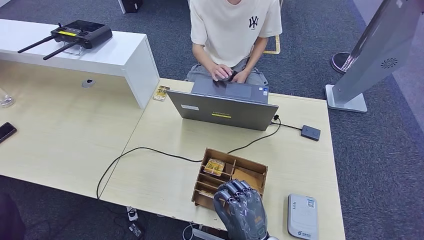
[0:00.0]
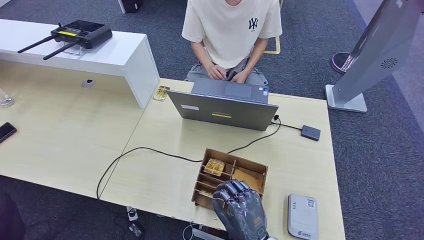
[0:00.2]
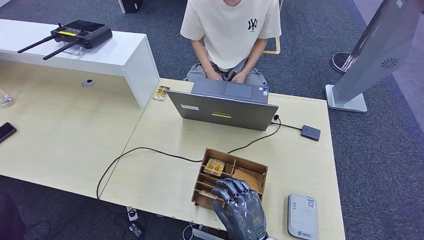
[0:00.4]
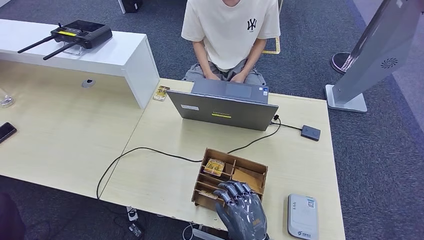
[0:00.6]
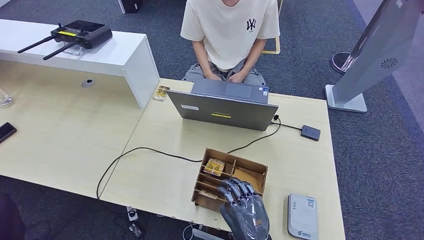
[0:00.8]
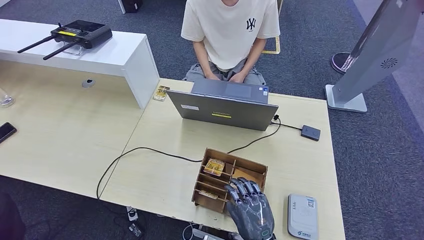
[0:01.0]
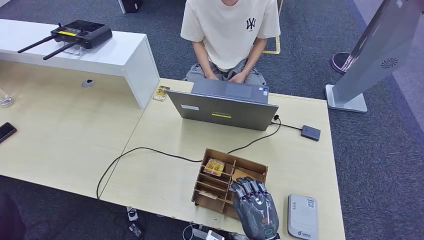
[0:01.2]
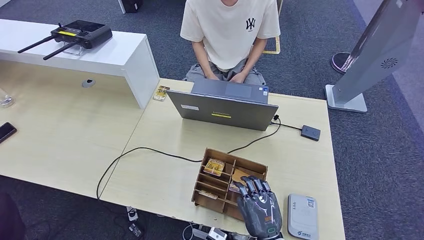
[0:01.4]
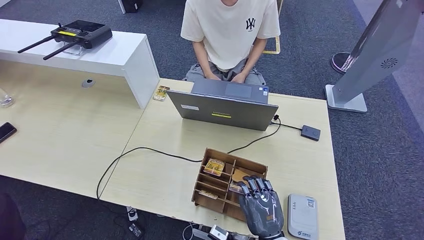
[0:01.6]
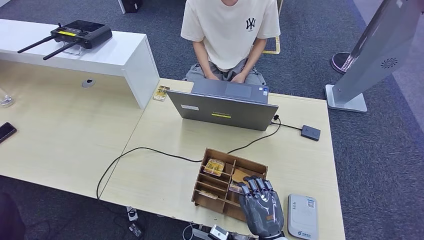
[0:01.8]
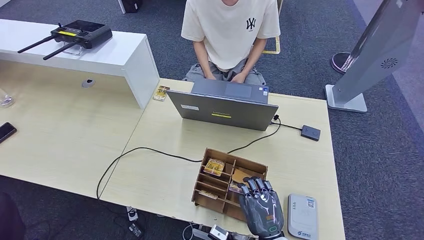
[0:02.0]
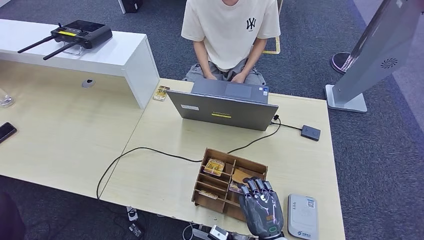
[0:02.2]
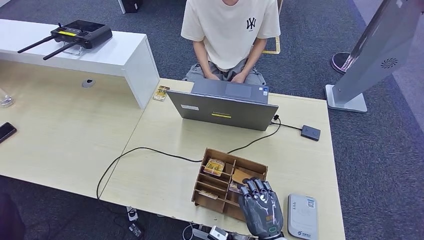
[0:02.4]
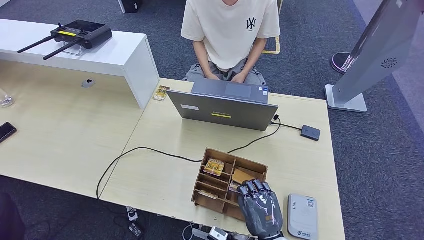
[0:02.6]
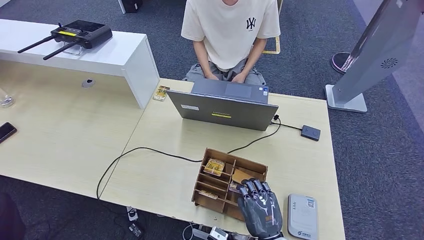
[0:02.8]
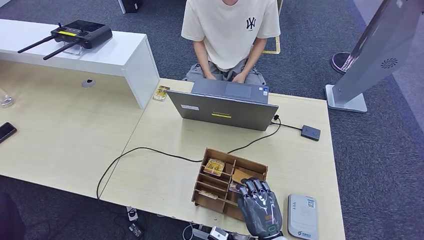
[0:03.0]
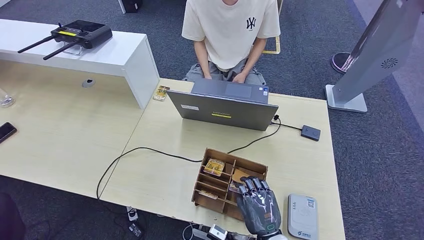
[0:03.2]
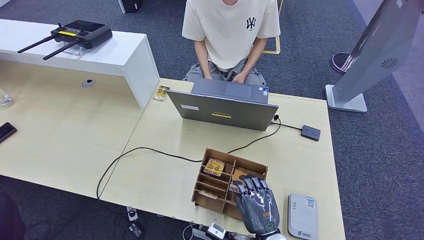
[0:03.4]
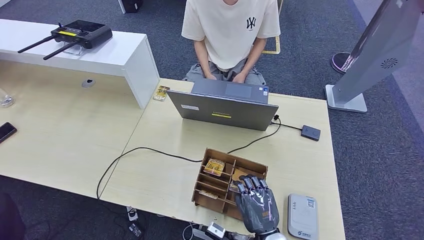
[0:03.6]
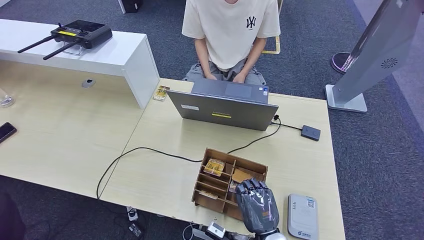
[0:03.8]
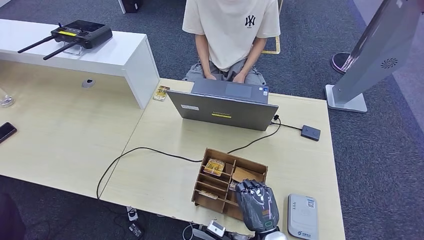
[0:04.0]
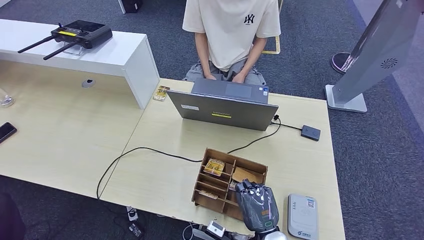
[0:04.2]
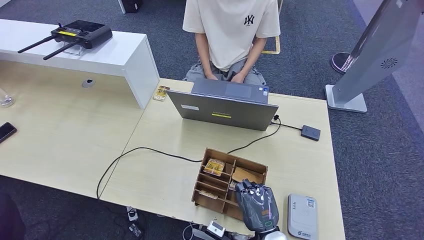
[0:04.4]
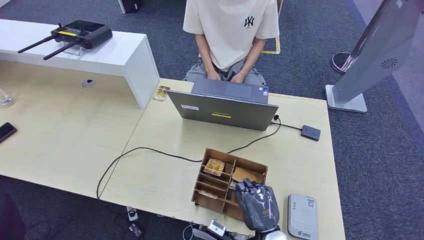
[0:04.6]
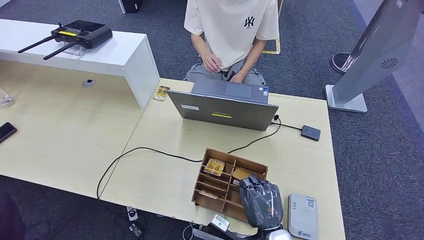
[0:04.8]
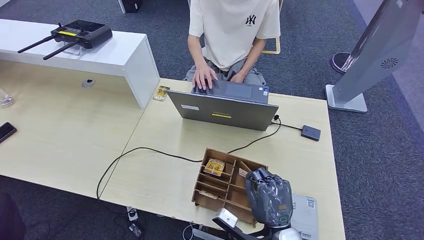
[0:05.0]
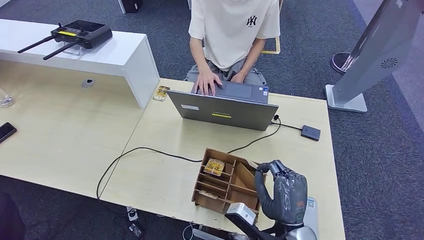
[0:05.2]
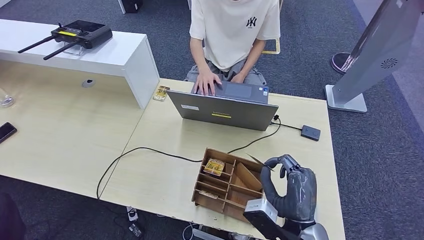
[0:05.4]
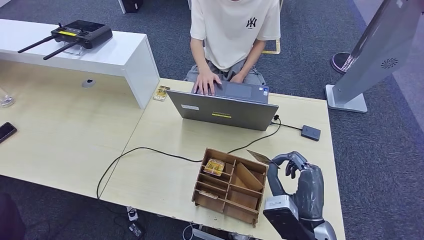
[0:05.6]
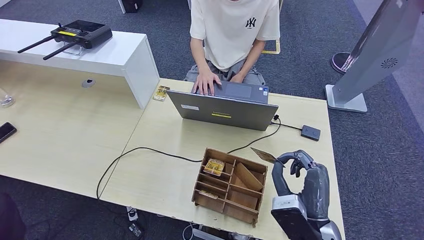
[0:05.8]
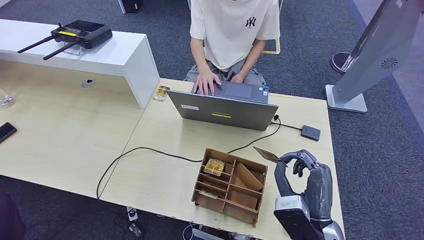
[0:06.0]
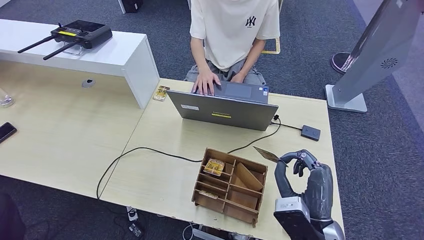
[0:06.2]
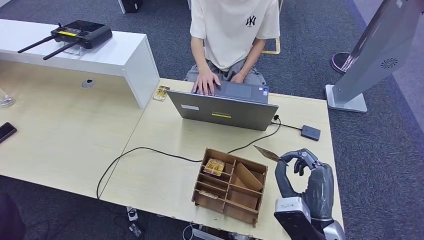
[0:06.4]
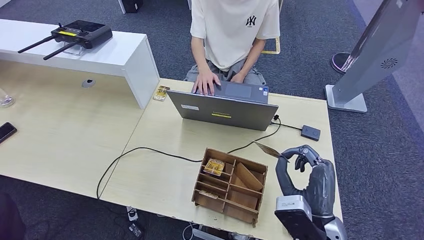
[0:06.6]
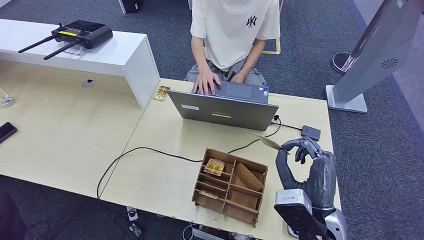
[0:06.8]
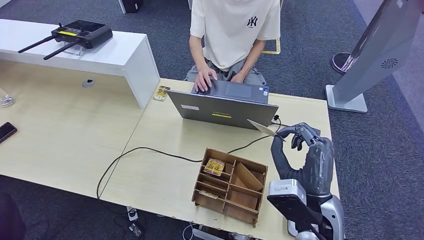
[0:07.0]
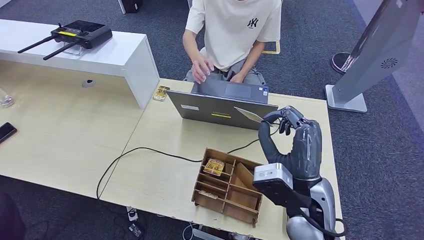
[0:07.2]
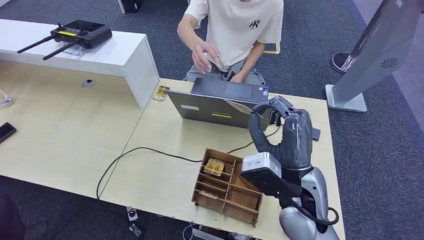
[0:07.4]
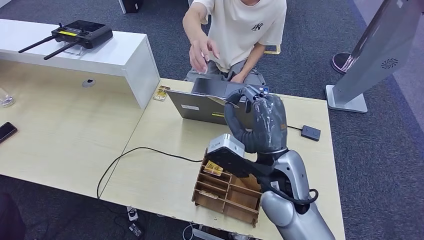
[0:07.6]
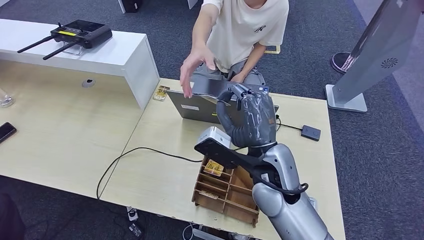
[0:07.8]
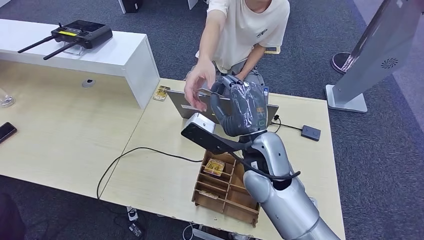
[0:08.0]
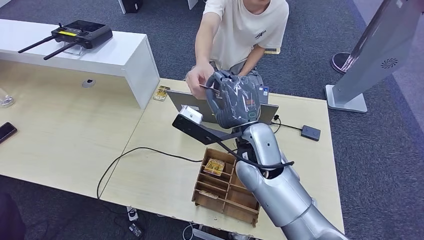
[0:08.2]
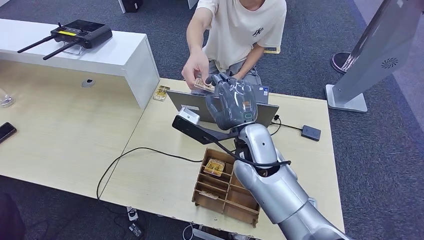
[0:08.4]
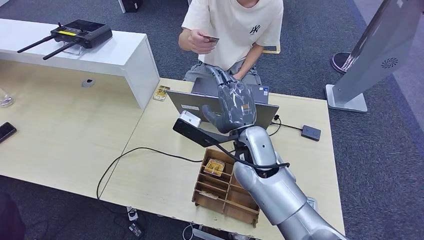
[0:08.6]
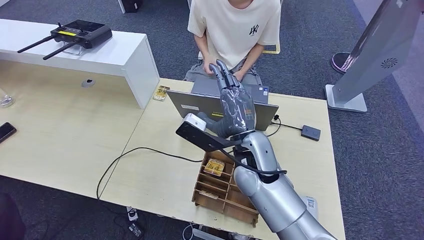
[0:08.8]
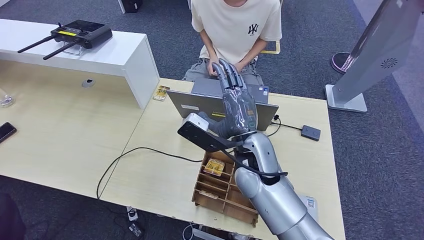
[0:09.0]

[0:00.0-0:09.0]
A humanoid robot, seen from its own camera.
Step, 4.2 to 6.0 s: Pick up the room key from the key card box.
Step, 6.2 to 9.0 s: Hand the room key to the person.
1.6 to 4.4 s: The two hands keep their place.
4.4 to 6.0 s: The right hand travels upward by about 10 cm.
6.0 to 7.6 s: The right hand is displaced upward, forward and to the left by some 15 cm.
7.6 to 9.0 s: The right hand ends up roughly 5 cm from where it was.

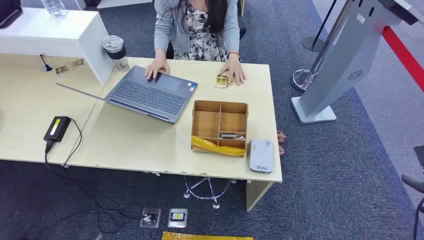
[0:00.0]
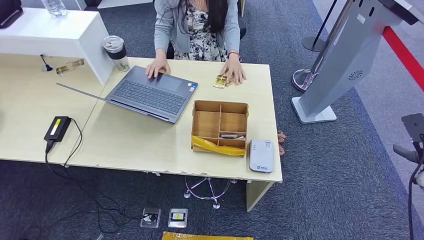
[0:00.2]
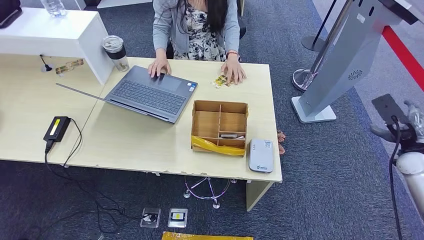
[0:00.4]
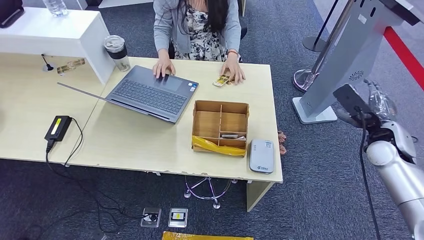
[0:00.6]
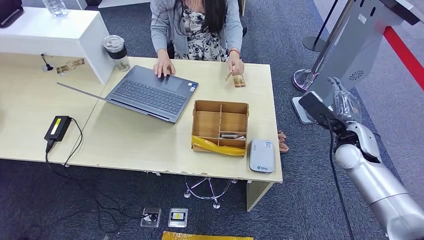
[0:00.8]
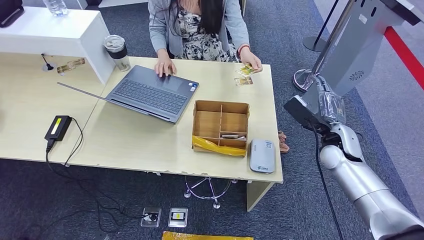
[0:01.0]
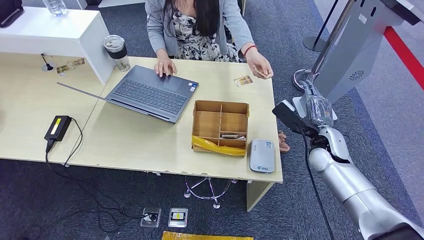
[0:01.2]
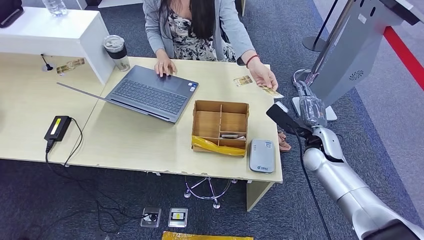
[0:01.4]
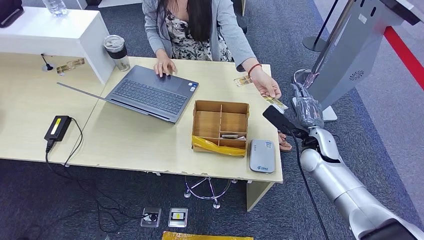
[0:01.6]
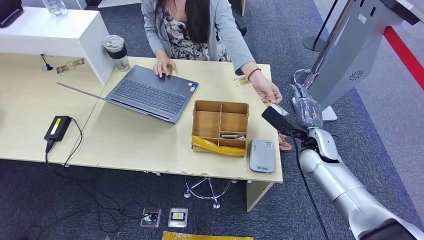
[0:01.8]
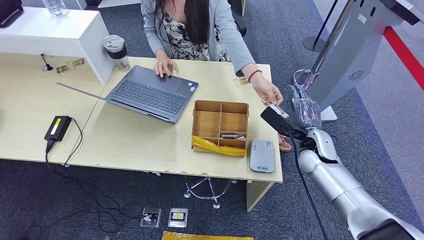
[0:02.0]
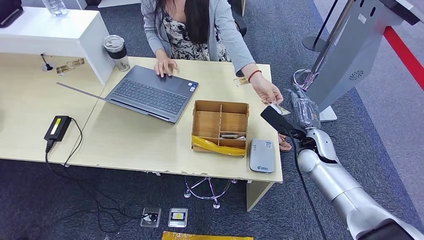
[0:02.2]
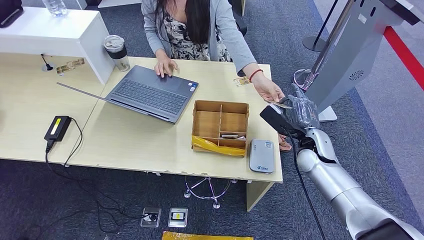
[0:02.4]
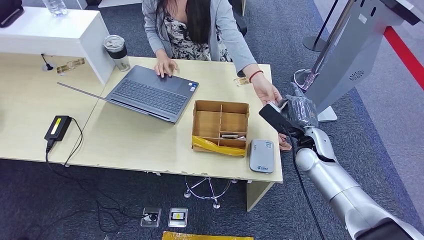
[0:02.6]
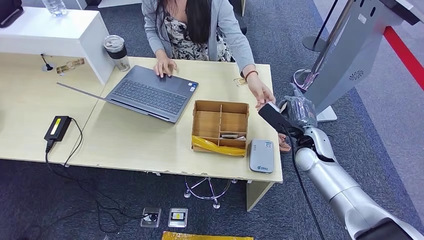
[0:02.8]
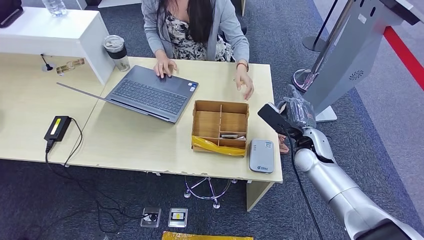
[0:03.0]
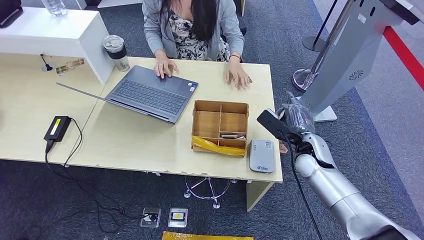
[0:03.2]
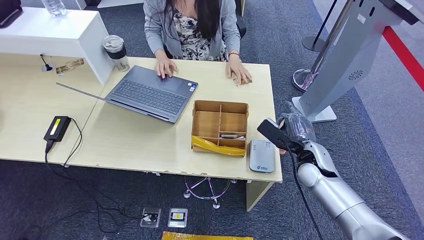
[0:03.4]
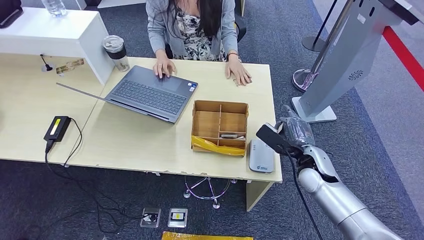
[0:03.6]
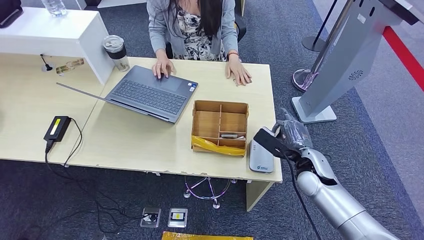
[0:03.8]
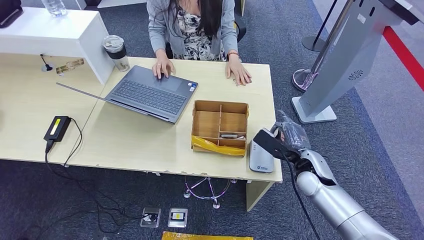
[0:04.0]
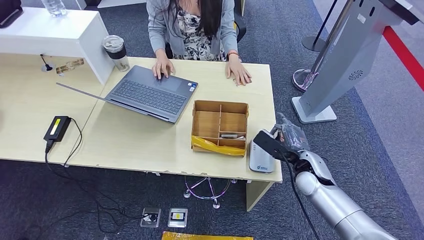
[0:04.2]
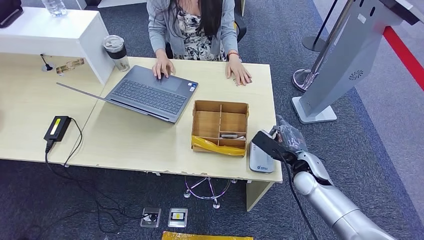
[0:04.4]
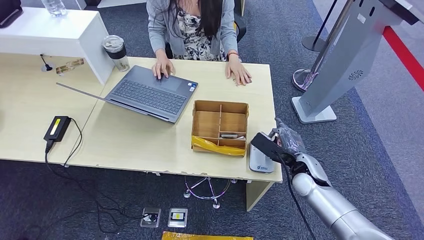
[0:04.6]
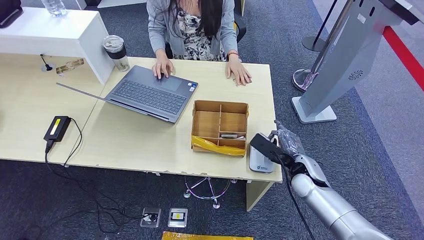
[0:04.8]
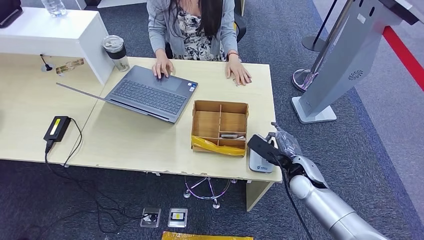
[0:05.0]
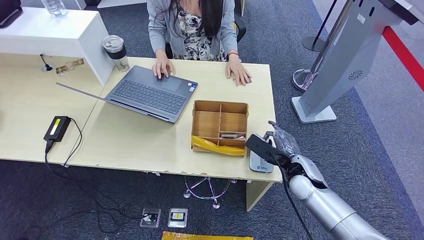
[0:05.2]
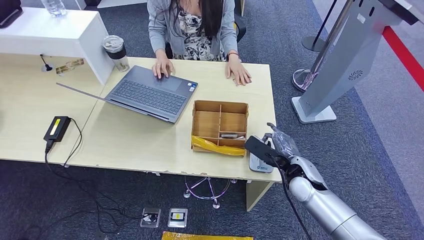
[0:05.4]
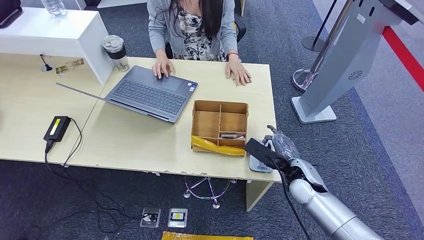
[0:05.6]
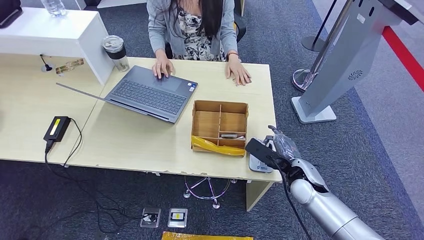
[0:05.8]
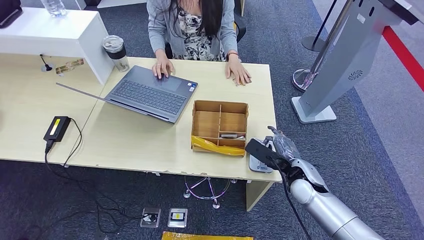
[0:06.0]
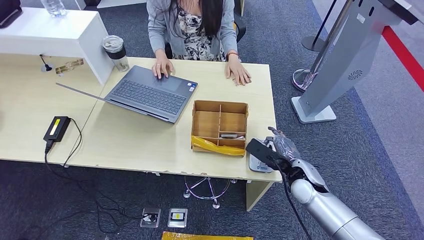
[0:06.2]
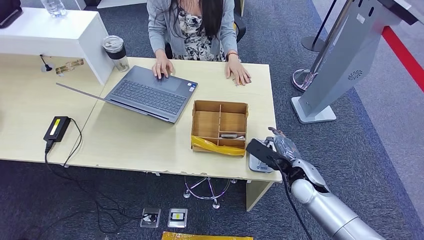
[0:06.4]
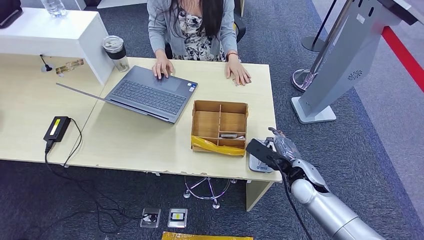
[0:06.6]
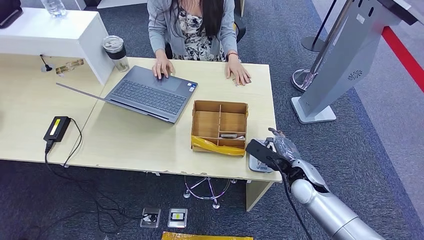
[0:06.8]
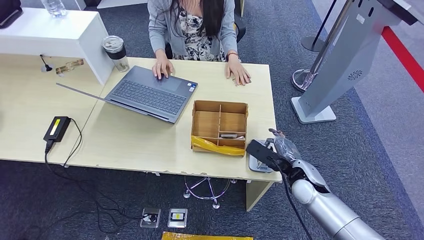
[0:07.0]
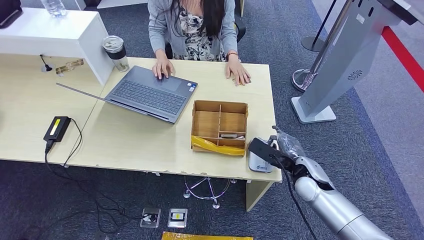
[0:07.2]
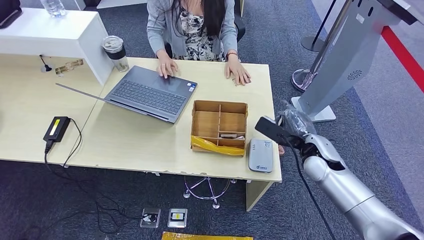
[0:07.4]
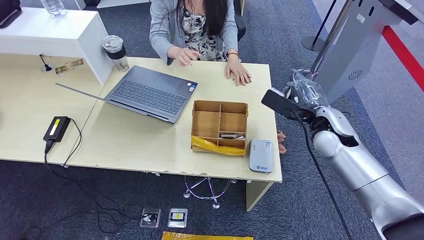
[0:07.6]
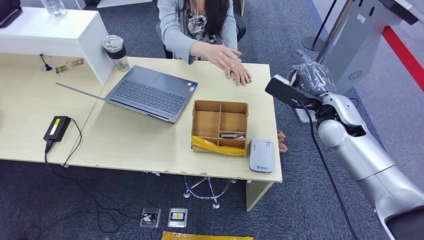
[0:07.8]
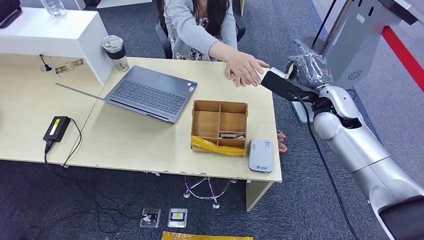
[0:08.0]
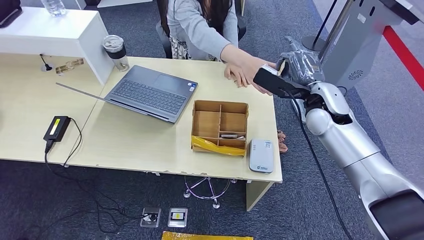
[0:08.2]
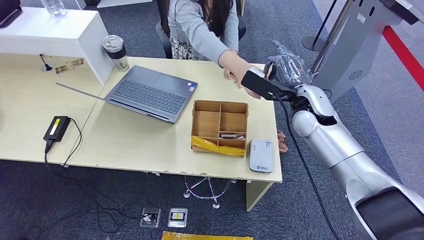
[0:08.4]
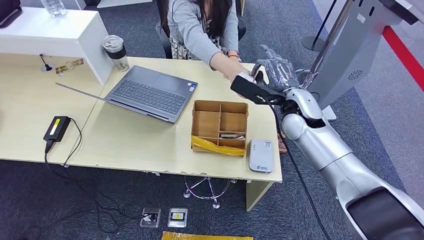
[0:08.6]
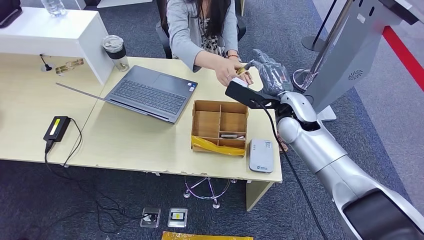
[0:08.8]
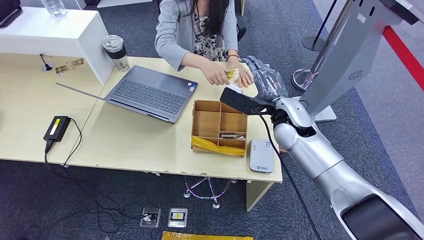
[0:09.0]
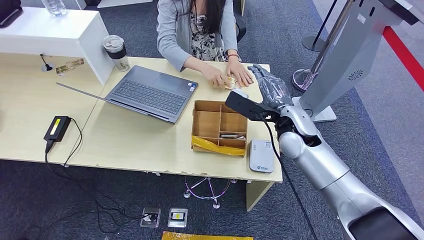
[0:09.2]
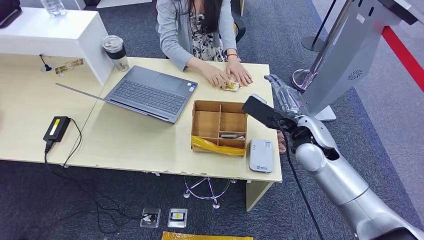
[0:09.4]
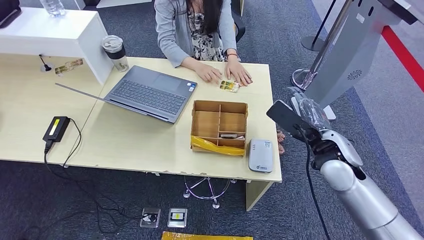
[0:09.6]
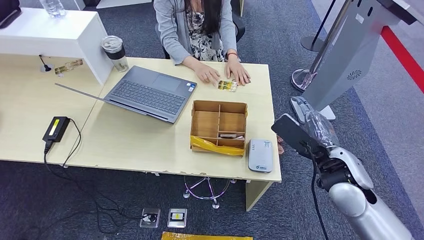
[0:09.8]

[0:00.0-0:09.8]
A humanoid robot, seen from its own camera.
Step, 0.0 to 3.2 s: Take the ID card from the person's hand.
Step, 3.6 to 7.8 s: Place the ID card on the card reader.
1.4 to 2.8 s: There are only small adjustments of the hands.
2.8 to 4.2 s: The right hand shifts by roughly 5 cm.
4.2 to 5.6 s: The hands move only a little.
5.6 to 7.0 s: Both hands stay about where they are.
7.0 to 8.4 s: The right hand shifts approximately 20 cm upward and forward.
8.4 to 9.8 s: The right hand is displaced backward by roughly 15 cm.
